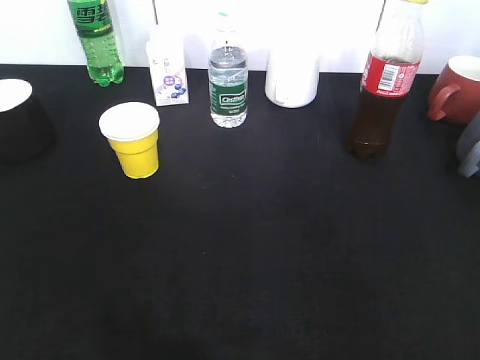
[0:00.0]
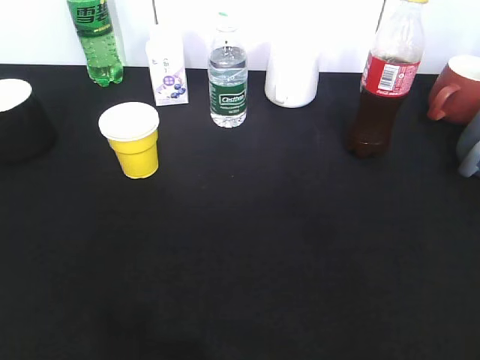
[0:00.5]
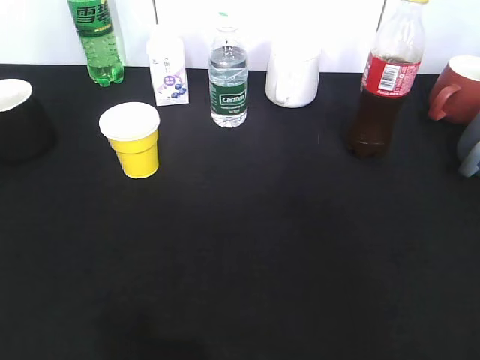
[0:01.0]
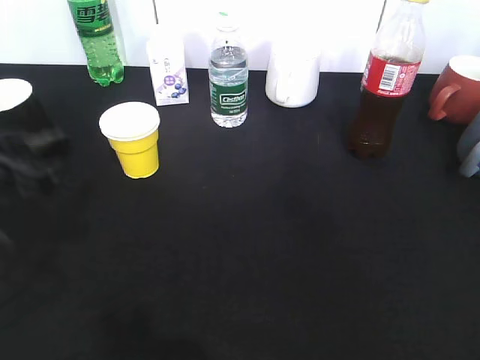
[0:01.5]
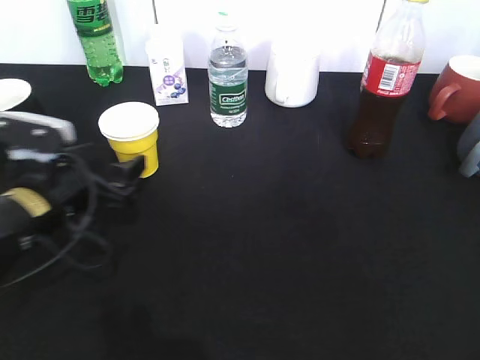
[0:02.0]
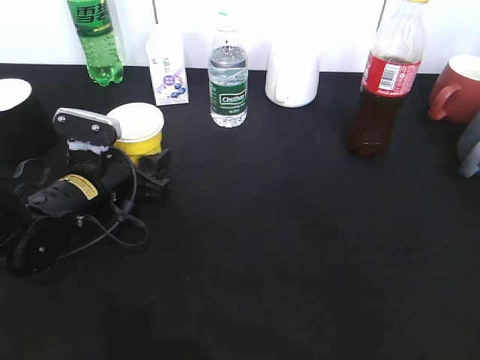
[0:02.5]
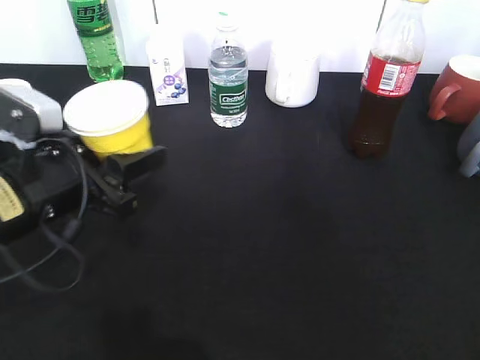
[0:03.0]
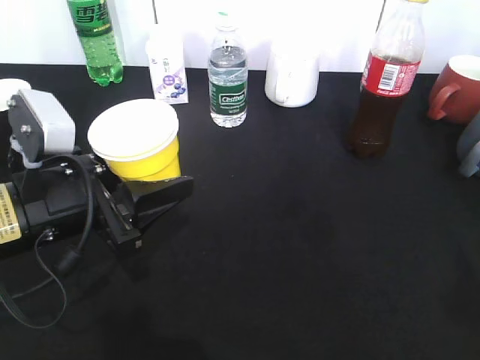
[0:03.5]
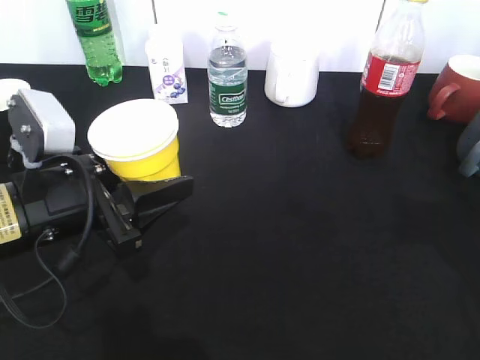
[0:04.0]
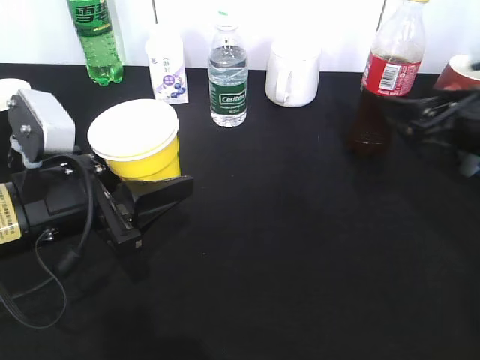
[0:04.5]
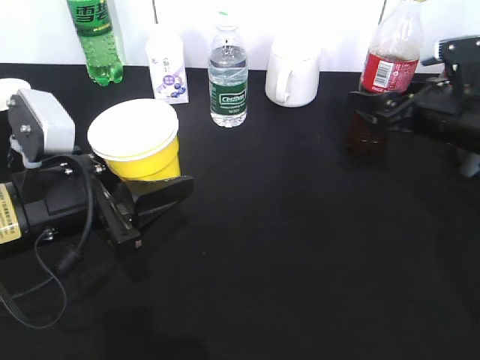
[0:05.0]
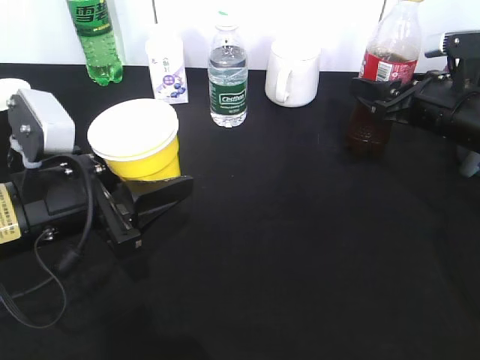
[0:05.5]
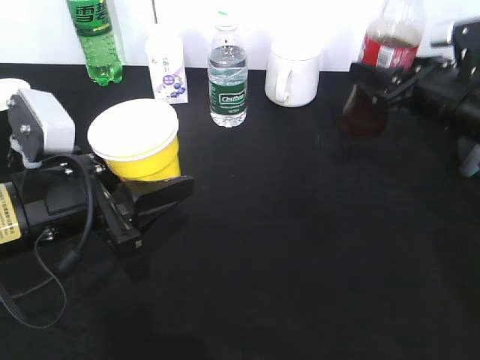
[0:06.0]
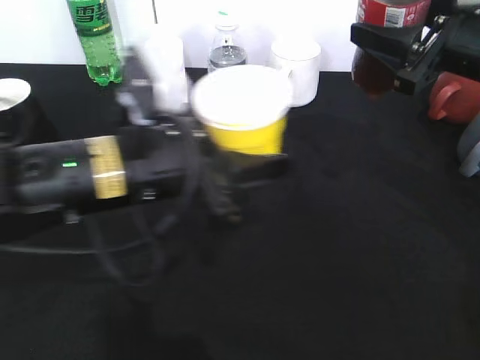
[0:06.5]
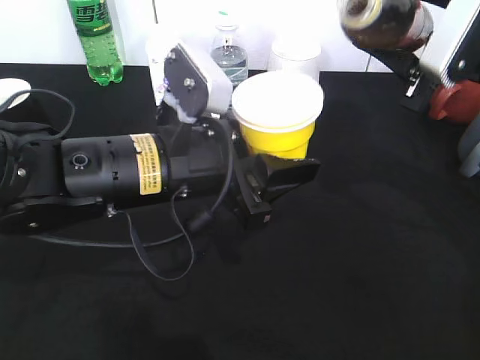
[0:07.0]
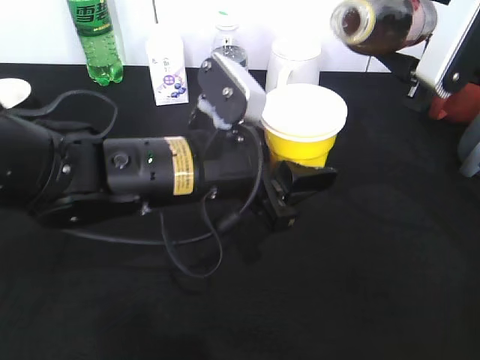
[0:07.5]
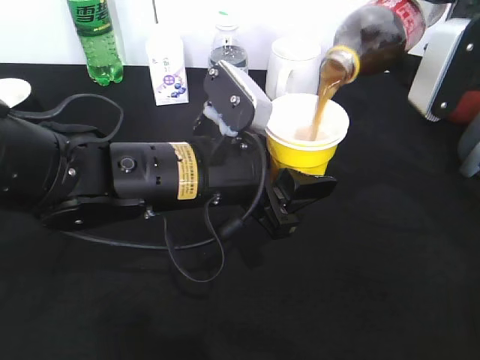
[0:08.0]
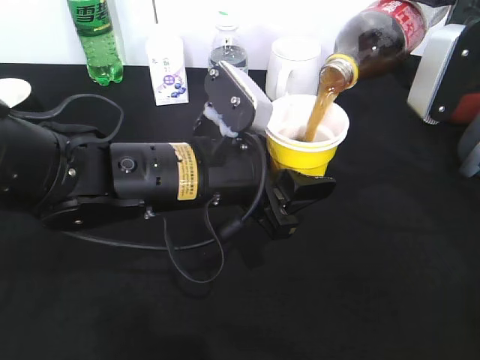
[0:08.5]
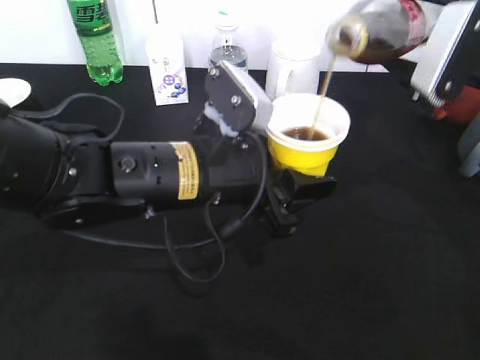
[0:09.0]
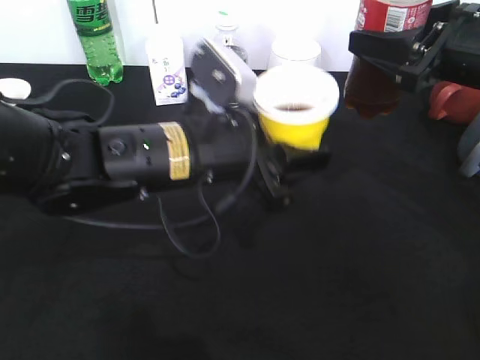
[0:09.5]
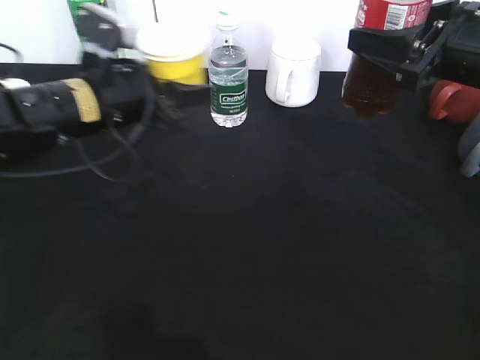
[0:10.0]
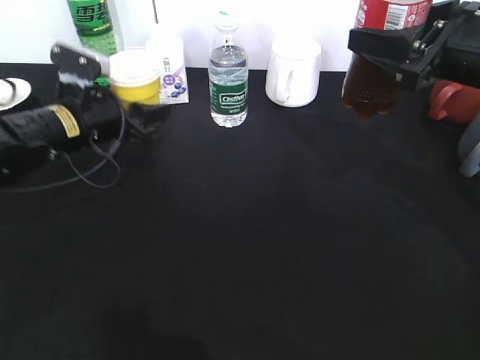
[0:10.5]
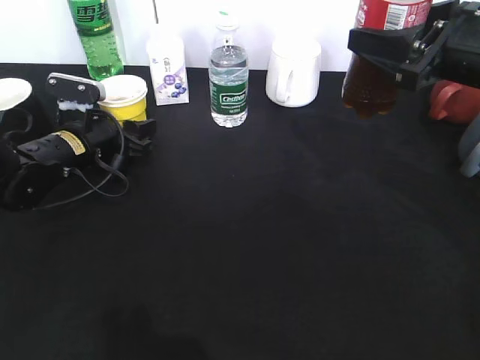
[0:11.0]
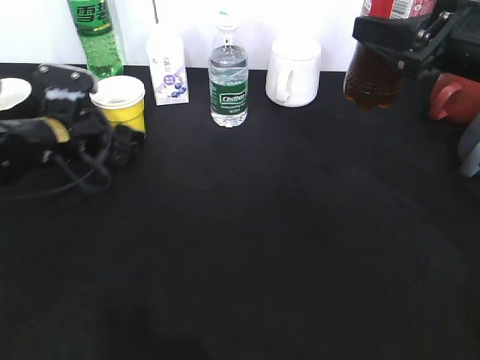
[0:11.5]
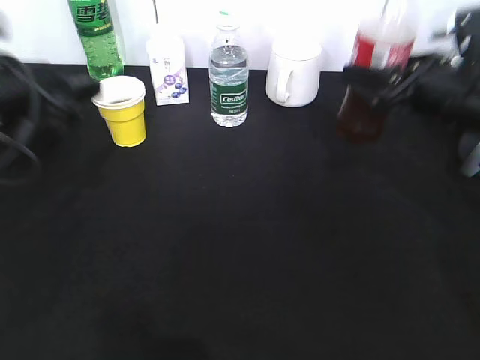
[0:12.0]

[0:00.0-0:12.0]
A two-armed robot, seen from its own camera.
Step, 0:00.0 to 0:02.5: Grasp the yellow paper cup with left gripper.
Step, 0:03.0 to 0:03.5: Lift the yellow paper cup with left gripper.
Step, 0:04.0 to 0:05.5: Grasp the bottle with cola with right gripper.
Step, 0:06.0 to 0:08.5: Pour the cola from bottle to cup with right gripper.
Step, 0:09.0 to 0:11.5: Place the yellow paper cup on the table with left gripper.
0:00.0 to 0:02.0: The left gripper shifts about 35 cm forward, downward and to the right, and opens.
0:02.0 to 0:04.0: The left gripper goes about 5 cm upward and backward, and closes. The right gripper shifts roughly 20 cm forward.
0:04.0 to 0:06.0: The right gripper goes roughly 15 cm forward, and closes up.
0:06.0 to 0:08.0: The left gripper shifts approximately 15 cm to the right. The right gripper moves upward, roughly 10 cm.
0:08.0 to 0:10.0: The left gripper goes some 15 cm to the left and forward.
0:10.0 to 0:12.0: The right gripper shifts about 5 cm downward; the left gripper travels to the left and backward by roughly 10 cm, reaches some 10 cm downward, then returns, and opens.

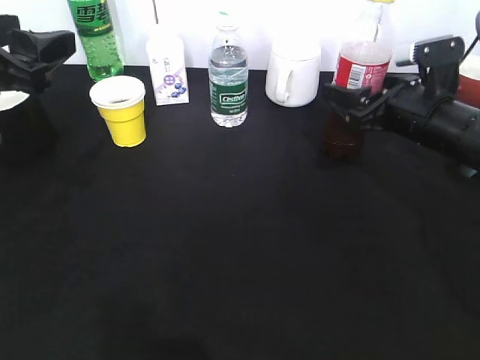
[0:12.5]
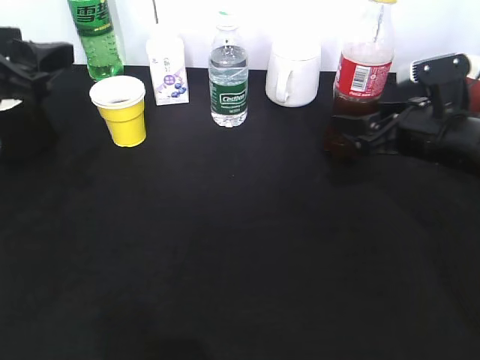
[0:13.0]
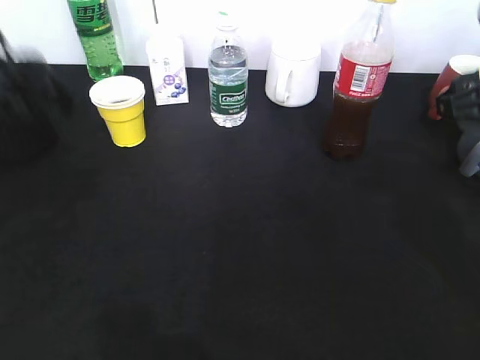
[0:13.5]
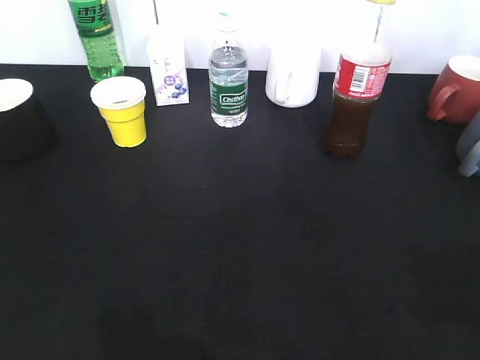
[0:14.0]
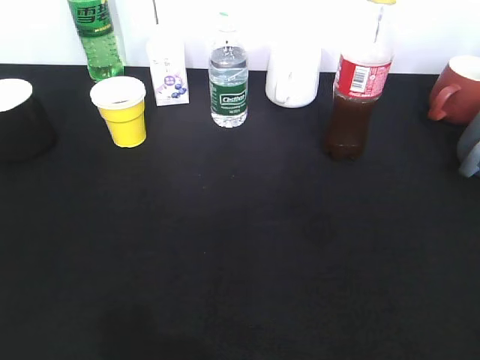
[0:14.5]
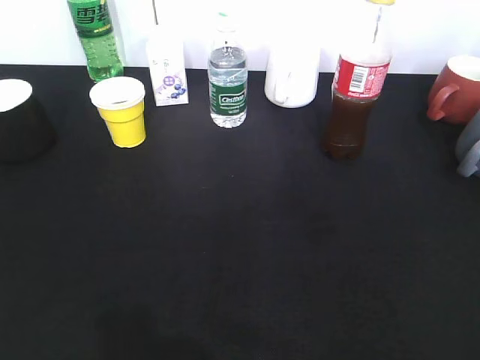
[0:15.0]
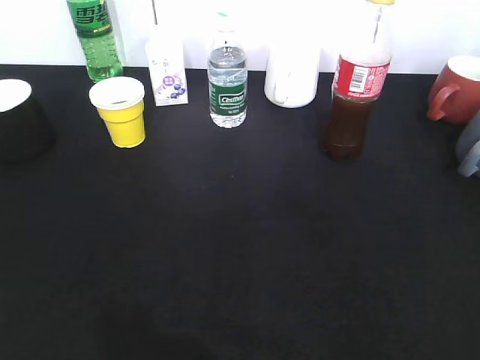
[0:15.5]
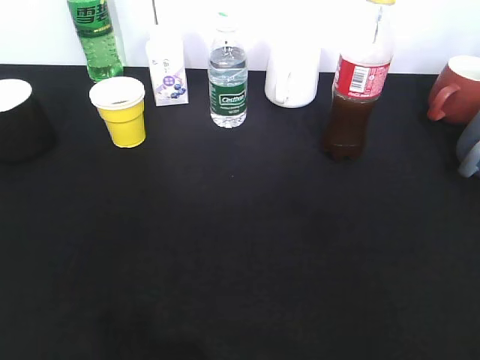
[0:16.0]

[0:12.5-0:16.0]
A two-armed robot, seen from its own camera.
0:12.5 to 0:14.5: The grippers both shift backward by about 30 cm. The right gripper closes.
0:14.5 to 0:16.0: The grippers move only a little.

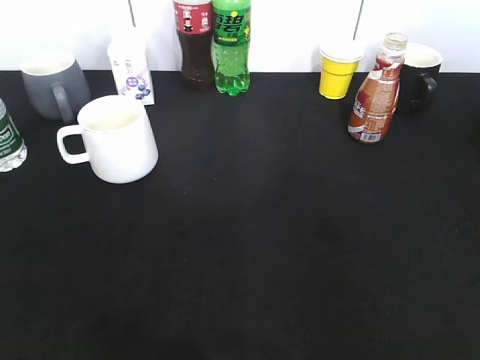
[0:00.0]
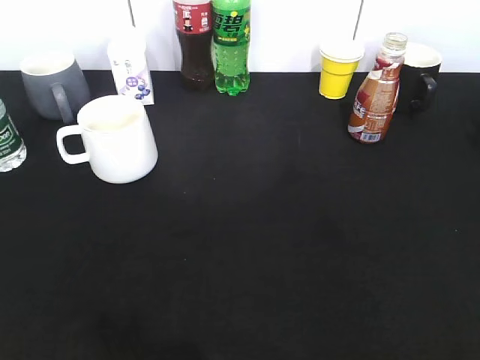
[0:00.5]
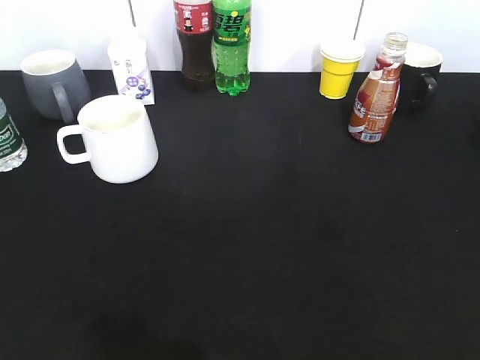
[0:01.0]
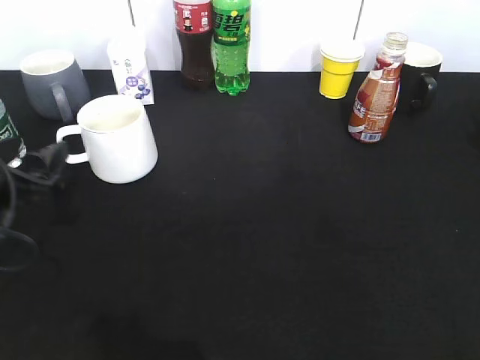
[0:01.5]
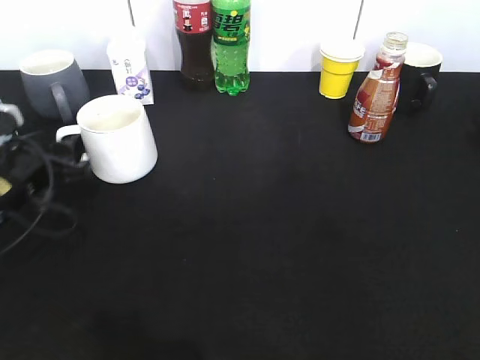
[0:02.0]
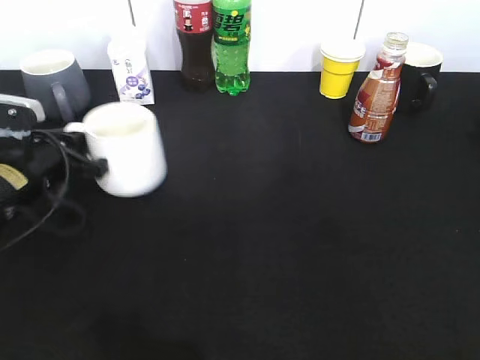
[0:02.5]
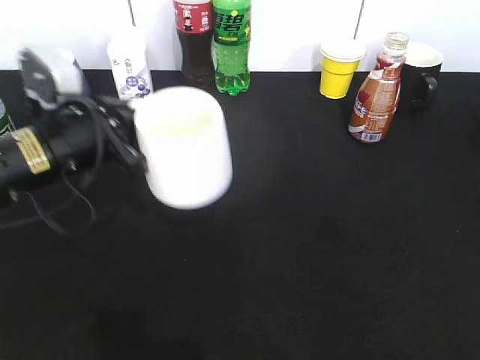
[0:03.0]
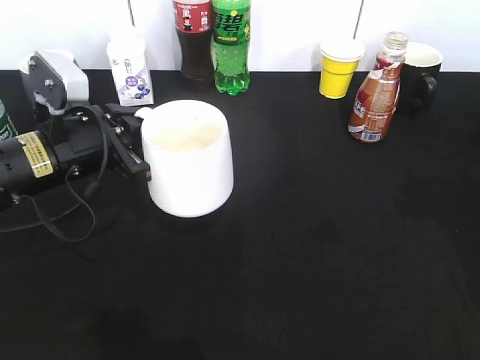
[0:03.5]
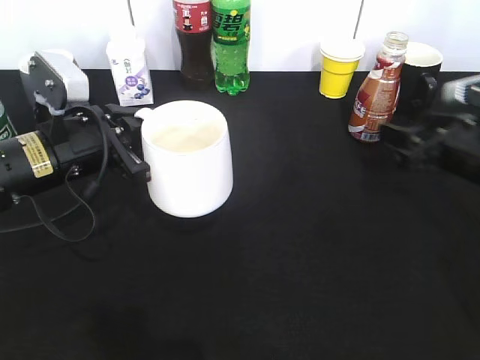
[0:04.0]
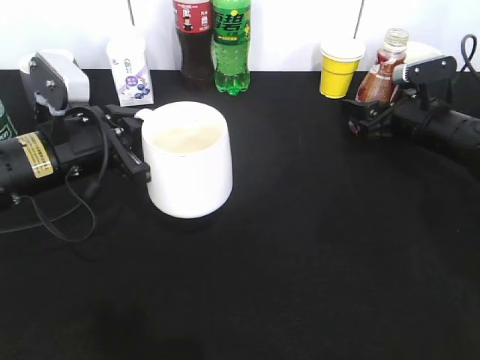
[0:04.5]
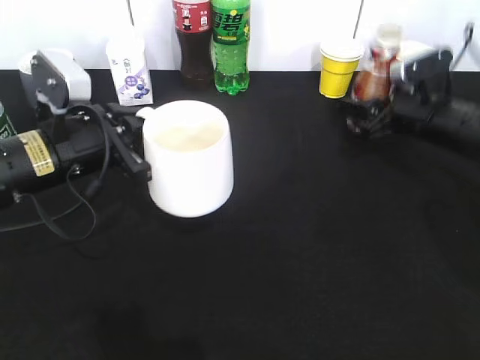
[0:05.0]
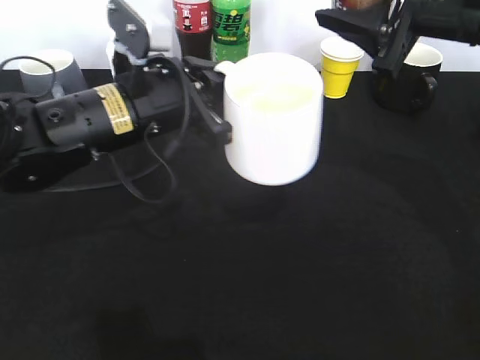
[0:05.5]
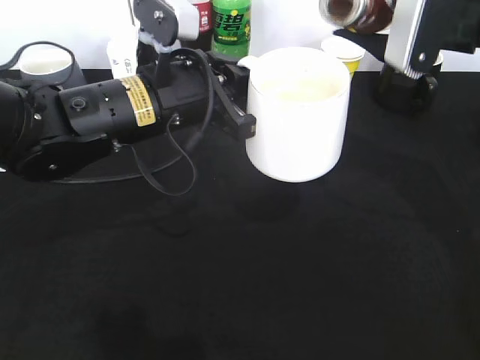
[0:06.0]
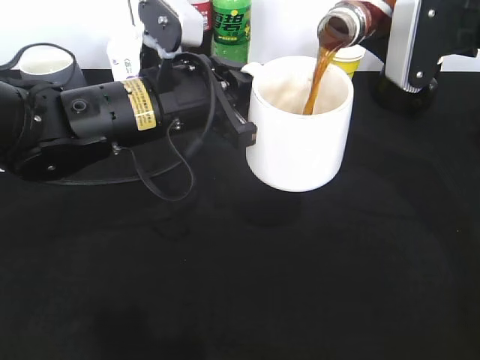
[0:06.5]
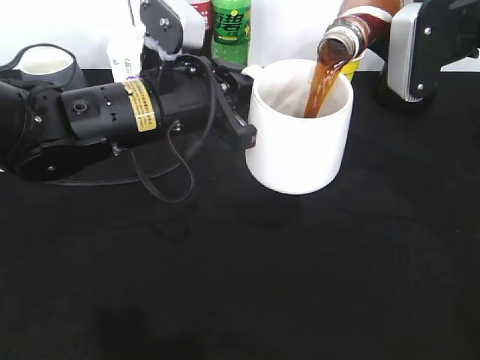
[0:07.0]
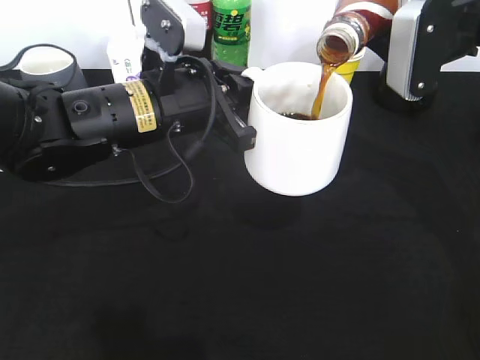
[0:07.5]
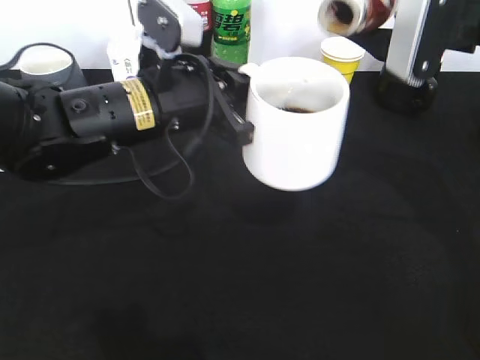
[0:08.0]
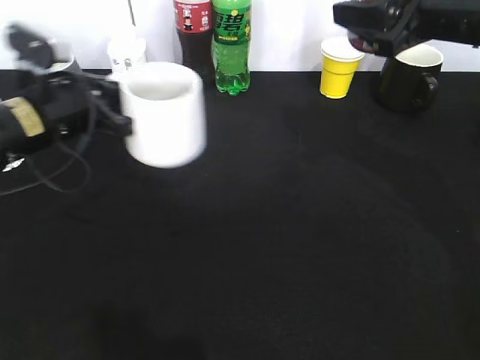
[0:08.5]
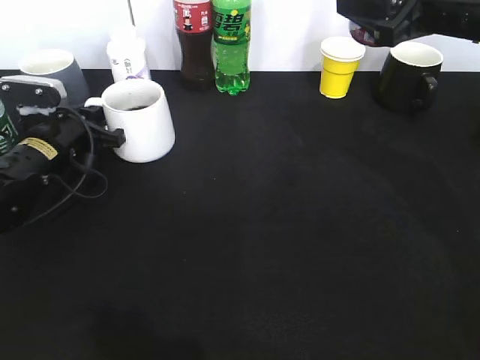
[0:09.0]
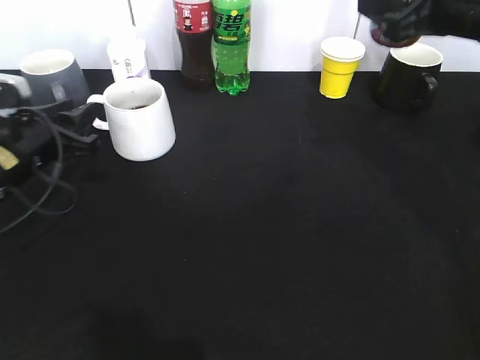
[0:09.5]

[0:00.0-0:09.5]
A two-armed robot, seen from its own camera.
Step, 0:01.0 to 0:02.0: Grasp the white cup with left gripper.
Step, 0:02.5 to 0:03.0: Lift the white cup with left gripper.
Step, 0:03.5 to 0:04.5: Grasp the bottle with coffee with right gripper.
Step, 0:05.0 to 0:08.0: Pour the coffee from bottle to cup with right gripper.
Step, 0:08.5 to 0:09.5: Place the white cup on the table with left gripper.
0:00.0 to 0:02.0: The left gripper heads forward and downward, covering some 35 cm, and opens its fingers.
0:02.0 to 0:04.0: The right gripper travels forward and downward by some 35 cm. Meanwhile the left gripper moves to the right, approximately 5 cm, and closes up.
0:04.0 to 0:05.5: The right gripper shifts some 15 cm upward and to the left, and closes. The left gripper shifts some 10 cm to the right.
0:07.5 to 0:09.5: The left gripper moves to the left and downward, approximately 20 cm, and opens up.
